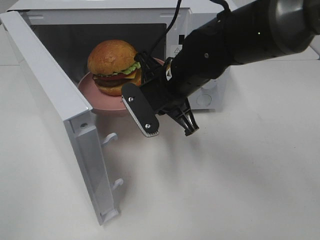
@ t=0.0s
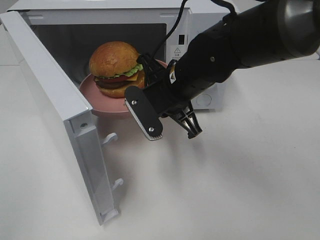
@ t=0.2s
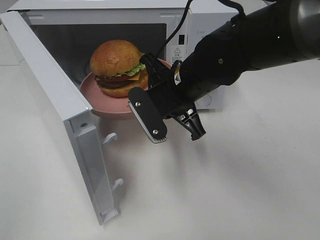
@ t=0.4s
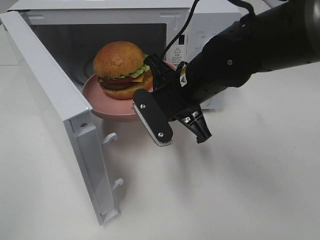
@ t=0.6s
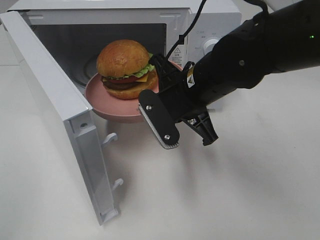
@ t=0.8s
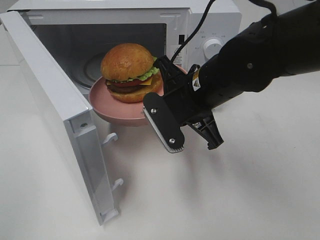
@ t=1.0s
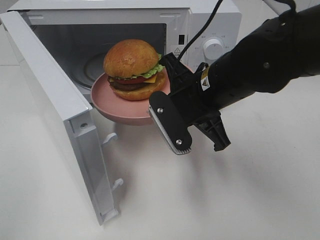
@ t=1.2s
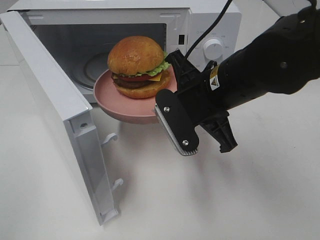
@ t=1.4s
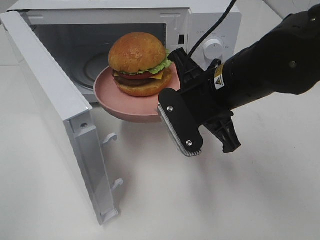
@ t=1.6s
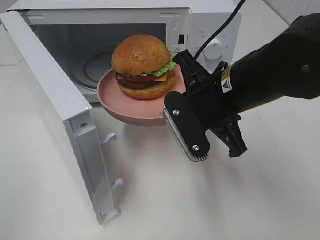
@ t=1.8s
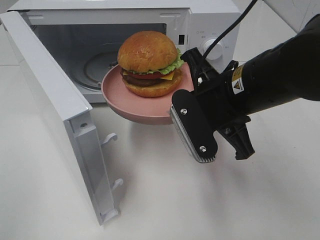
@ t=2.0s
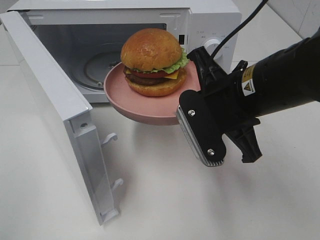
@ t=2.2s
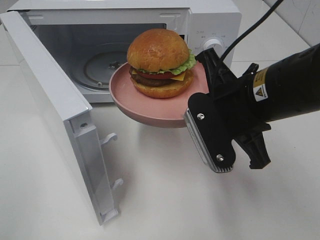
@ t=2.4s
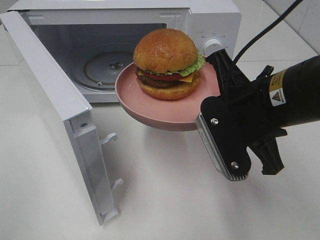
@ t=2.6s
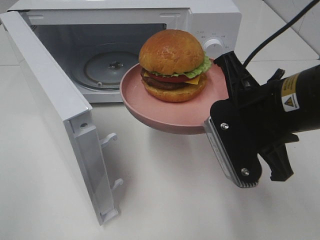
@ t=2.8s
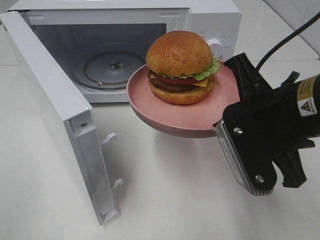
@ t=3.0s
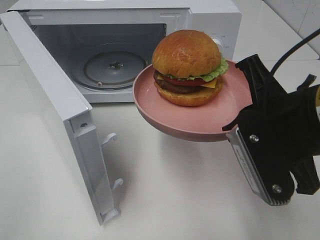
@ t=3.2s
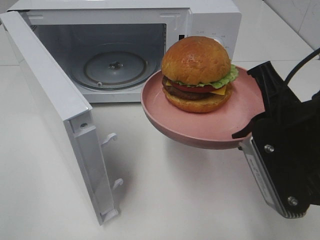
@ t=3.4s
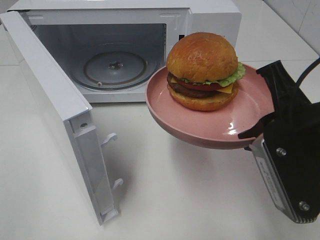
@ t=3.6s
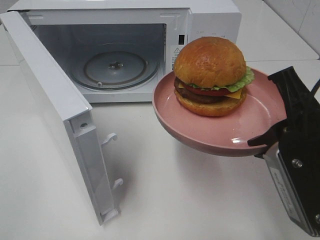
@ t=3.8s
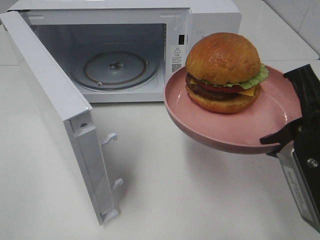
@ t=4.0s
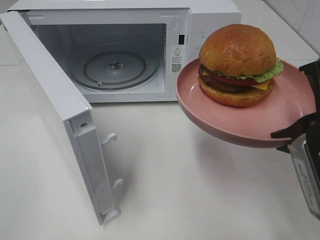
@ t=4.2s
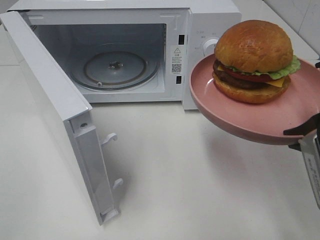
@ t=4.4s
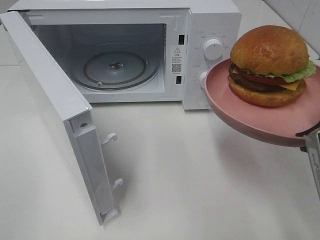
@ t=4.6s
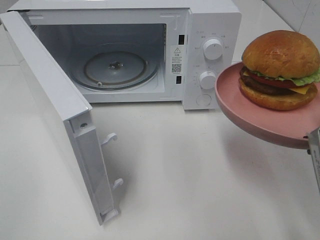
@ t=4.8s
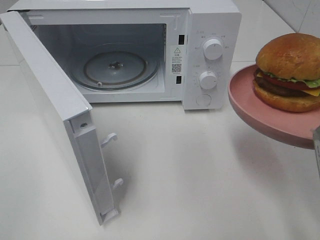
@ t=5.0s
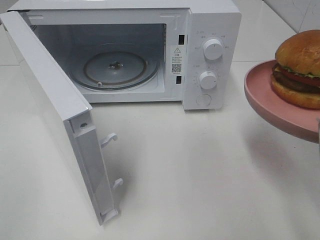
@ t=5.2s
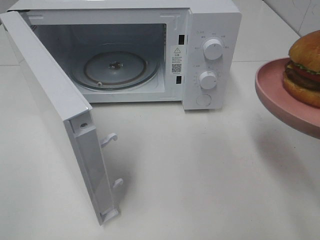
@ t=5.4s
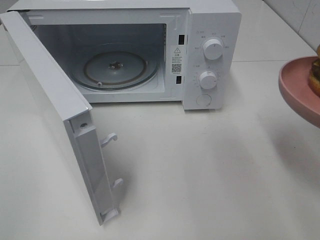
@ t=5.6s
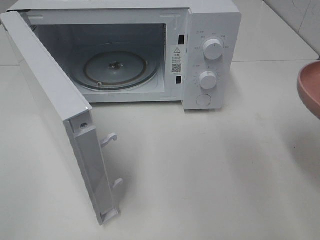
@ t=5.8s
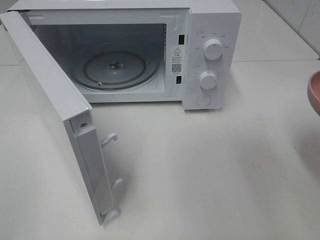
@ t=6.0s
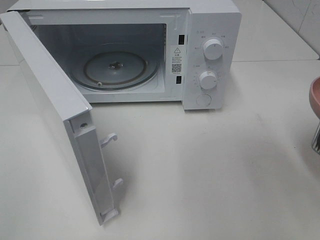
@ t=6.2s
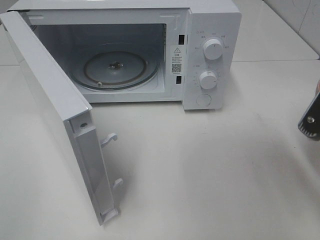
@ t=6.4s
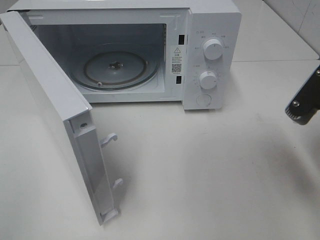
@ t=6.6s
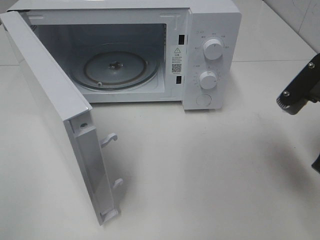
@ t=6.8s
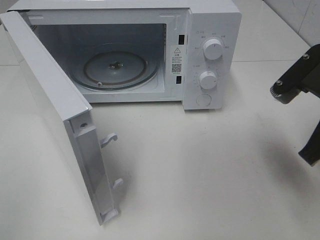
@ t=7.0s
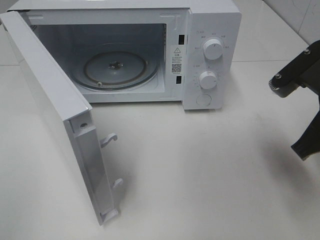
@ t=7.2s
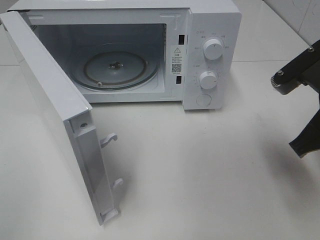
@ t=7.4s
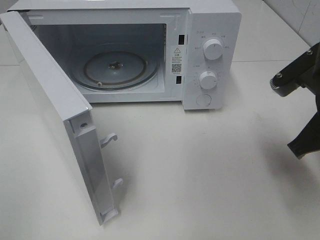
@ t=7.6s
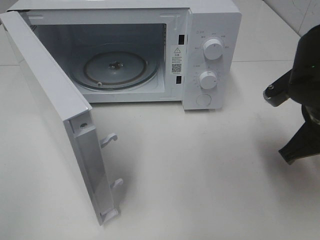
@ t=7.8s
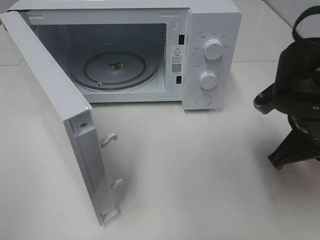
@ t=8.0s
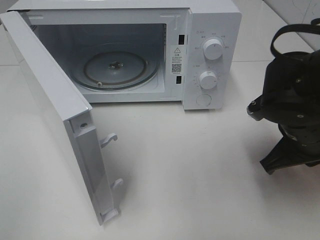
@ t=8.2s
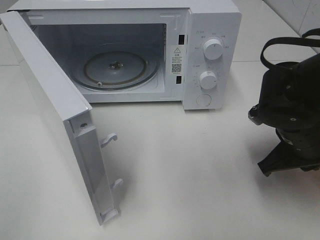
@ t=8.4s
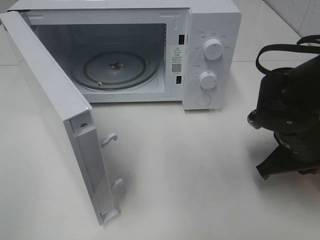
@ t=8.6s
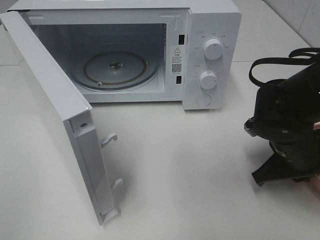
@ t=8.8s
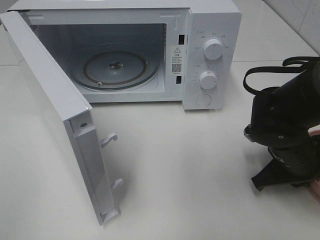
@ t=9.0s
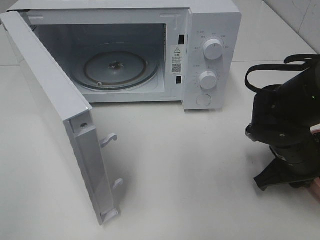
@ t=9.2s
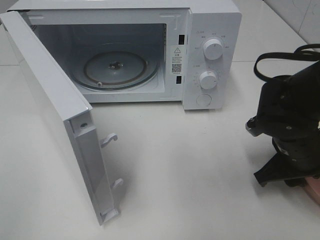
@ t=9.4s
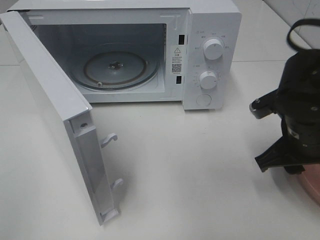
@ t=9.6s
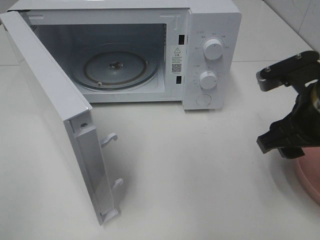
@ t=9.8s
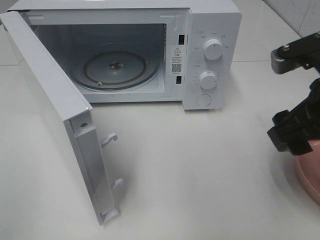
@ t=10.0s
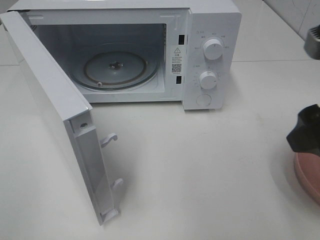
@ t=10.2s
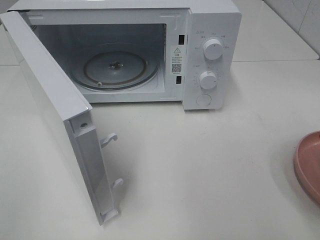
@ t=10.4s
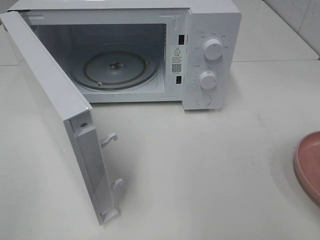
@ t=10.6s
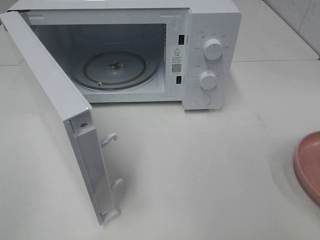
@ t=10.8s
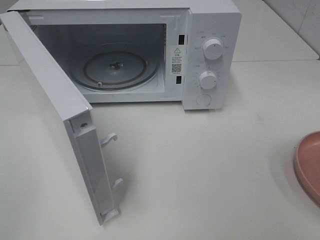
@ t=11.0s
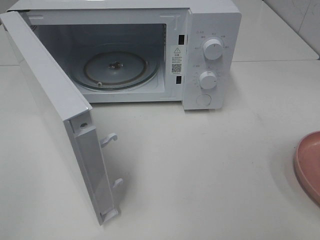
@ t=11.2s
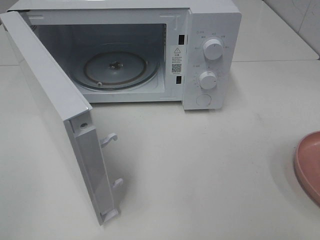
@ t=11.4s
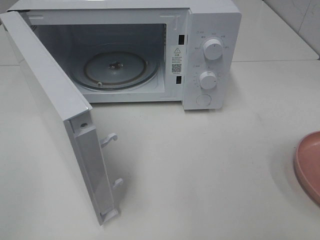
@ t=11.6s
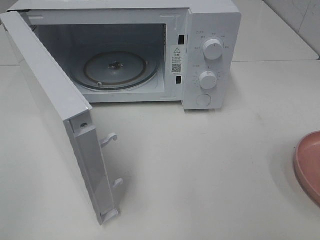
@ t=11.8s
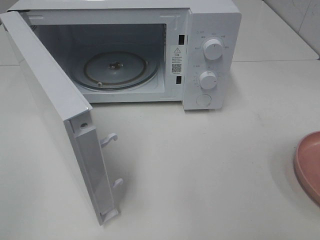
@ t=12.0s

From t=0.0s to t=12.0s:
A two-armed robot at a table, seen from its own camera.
Task of the whole recording: Heat the burger.
Step, from t=0.0s to t=9.2s: Right hand: place the plate on the table.
From t=0.0s to t=1.6s: The right gripper travels backward and to the right by approximately 10 cm.
From t=1.6s to t=3.0s: The right gripper moves backward and to the right, approximately 10 cm.
From t=3.0s to t=4.4s: The right gripper shifts about 10 cm to the right and backward.
From t=6.0s to t=7.6s: The right gripper moves forward, about 10 cm.
From t=7.6s to t=9.0s: The right gripper goes approximately 15 cm downward.
From t=9.0s to t=10.4s: The right gripper shifts roughly 25 cm upward and backward, and opens up.

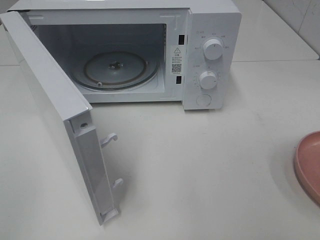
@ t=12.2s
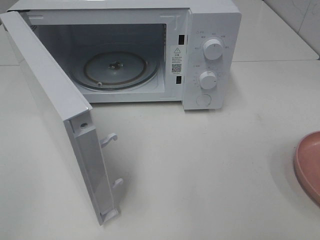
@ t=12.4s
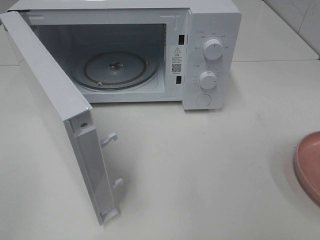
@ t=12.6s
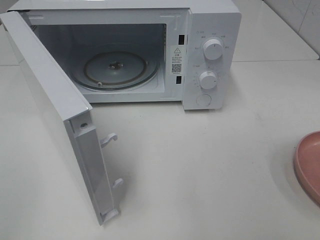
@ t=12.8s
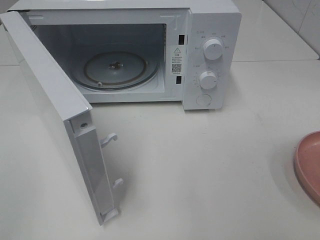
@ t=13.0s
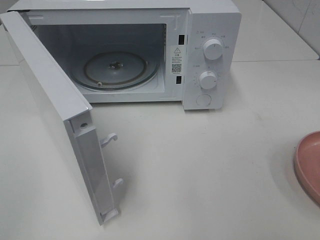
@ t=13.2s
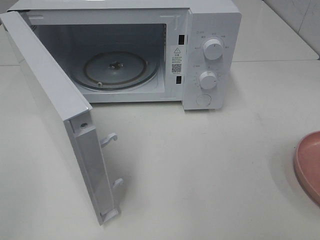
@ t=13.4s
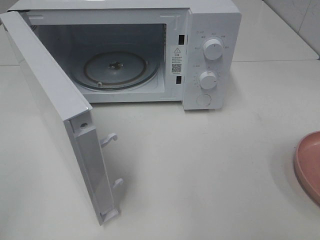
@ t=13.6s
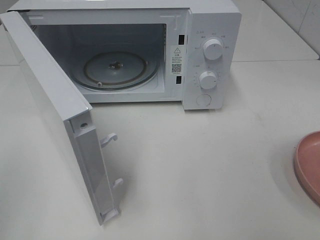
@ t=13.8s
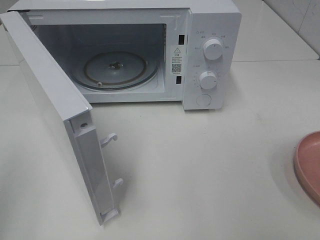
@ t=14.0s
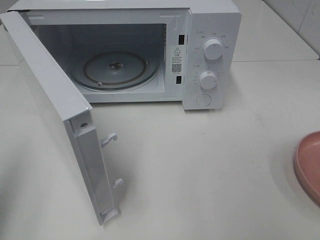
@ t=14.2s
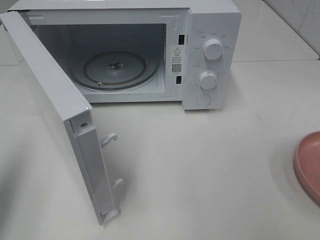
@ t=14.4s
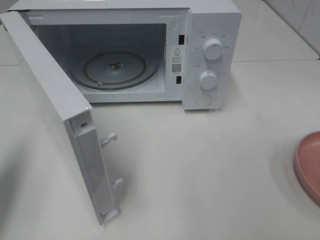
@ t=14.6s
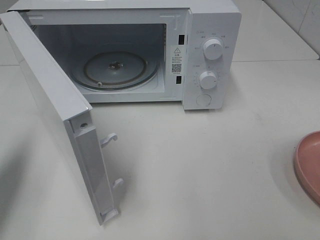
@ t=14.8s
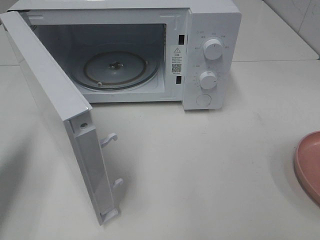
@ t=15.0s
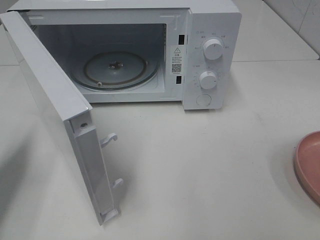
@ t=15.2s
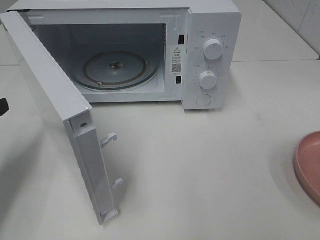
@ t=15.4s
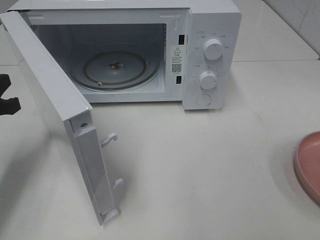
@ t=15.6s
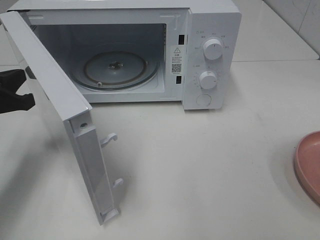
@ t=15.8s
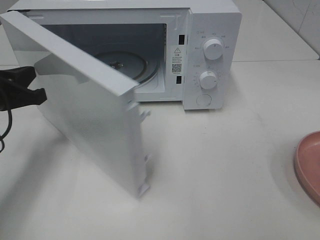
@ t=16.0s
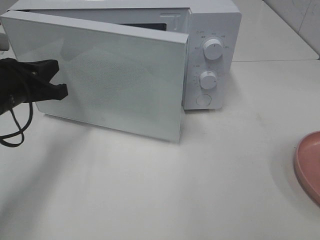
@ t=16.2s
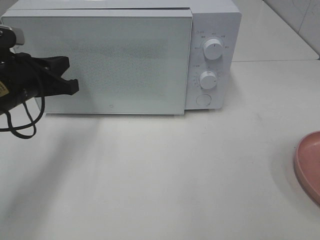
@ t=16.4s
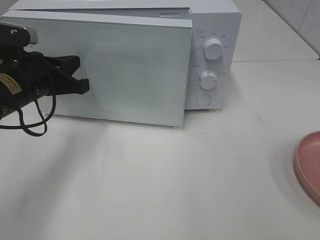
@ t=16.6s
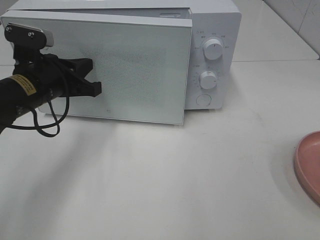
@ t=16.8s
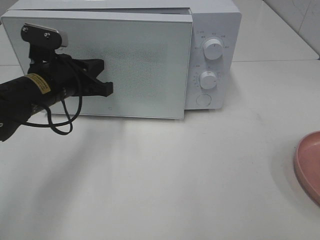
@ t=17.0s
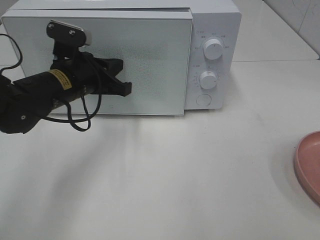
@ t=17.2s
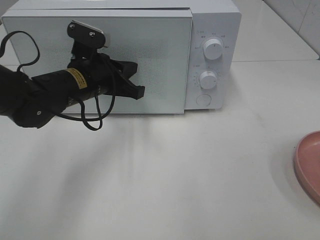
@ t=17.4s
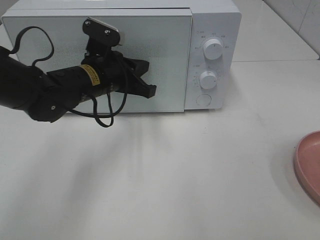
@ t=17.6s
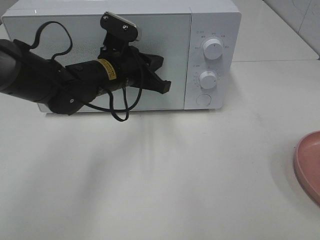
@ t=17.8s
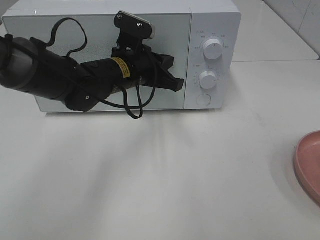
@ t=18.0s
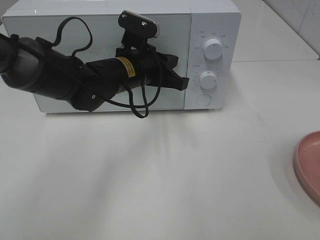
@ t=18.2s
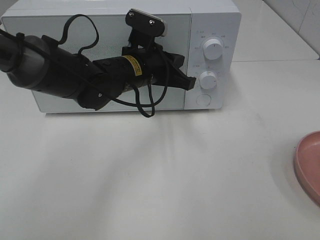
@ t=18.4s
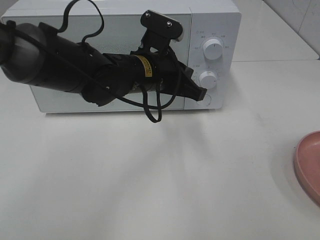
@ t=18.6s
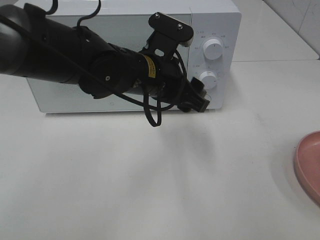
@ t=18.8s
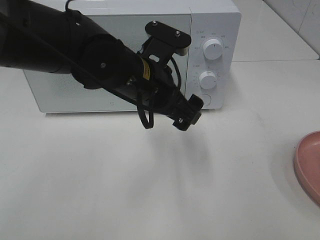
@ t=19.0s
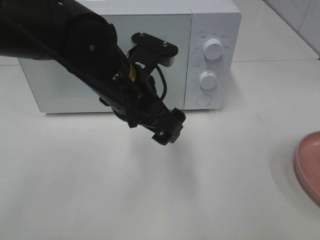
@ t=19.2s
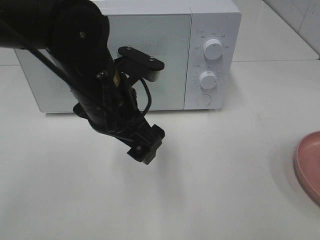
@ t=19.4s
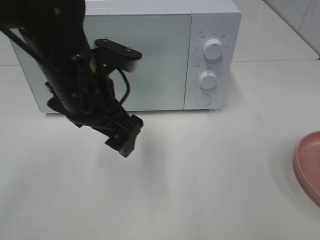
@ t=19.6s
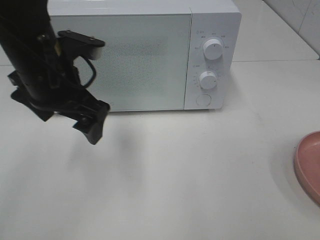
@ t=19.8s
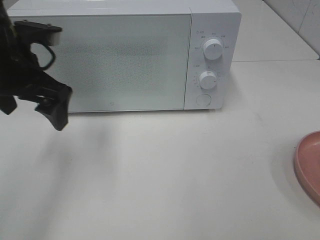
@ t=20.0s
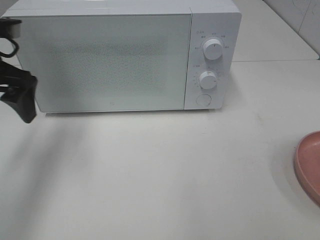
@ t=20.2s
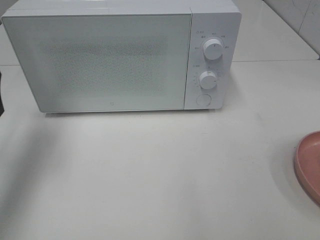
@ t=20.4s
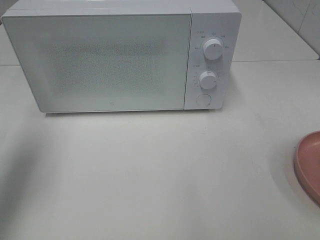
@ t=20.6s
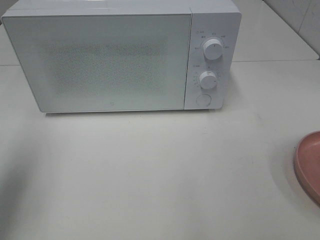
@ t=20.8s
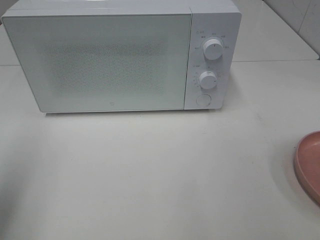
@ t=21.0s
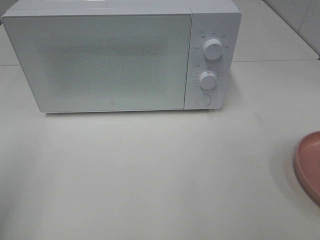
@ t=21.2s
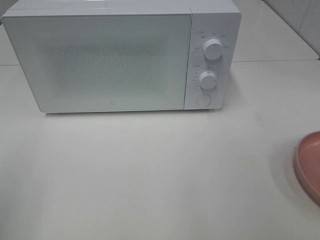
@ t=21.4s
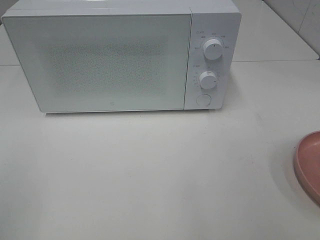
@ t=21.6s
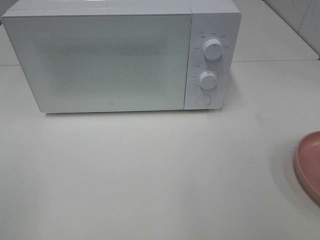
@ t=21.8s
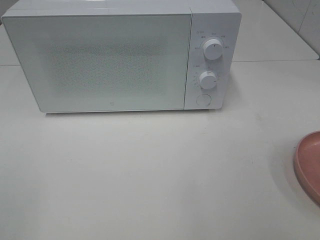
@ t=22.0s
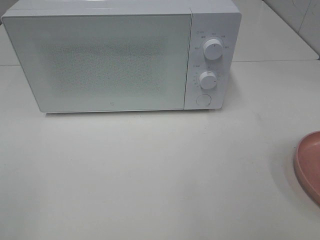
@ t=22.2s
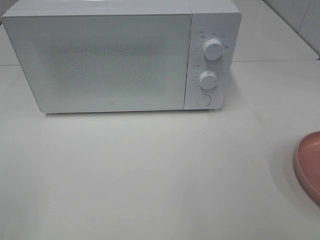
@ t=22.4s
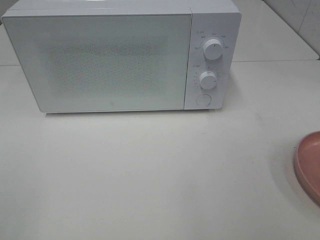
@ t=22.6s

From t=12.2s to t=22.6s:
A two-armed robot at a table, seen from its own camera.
Task of the whole recording: Heat the burger.
Step, from t=12.2s to t=18.2s: Left hand: close the microwave door.
From t=13.6s to t=15.2s: The left gripper is displaced forward and downward by about 25 cm, and closes its fingers.
From t=15.2s to t=16.6s: The left gripper heads to the right and forward, covering approximately 15 cm.
From t=16.6s to t=18.2s: The left gripper travels to the right by approximately 15 cm.
From t=18.2s to t=19.6s: The left gripper heads backward, upward and to the left, covering about 15 cm, and opens up.
From t=19.6s to t=21.2s: The left gripper is displaced to the left and backward by approximately 30 cm.
